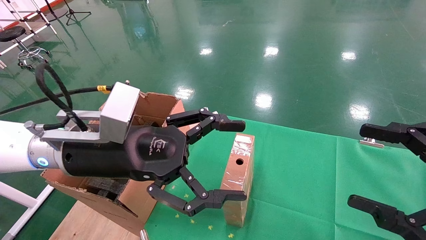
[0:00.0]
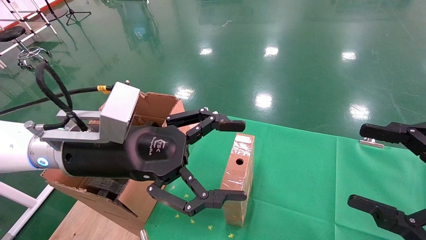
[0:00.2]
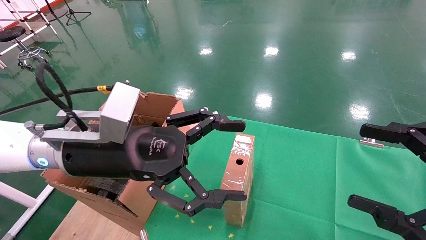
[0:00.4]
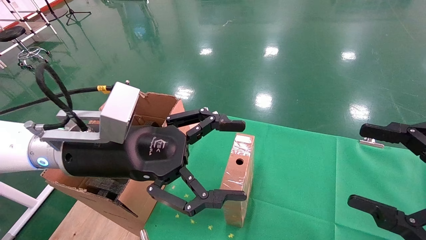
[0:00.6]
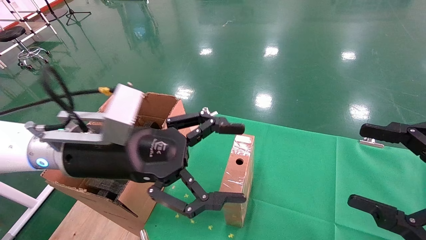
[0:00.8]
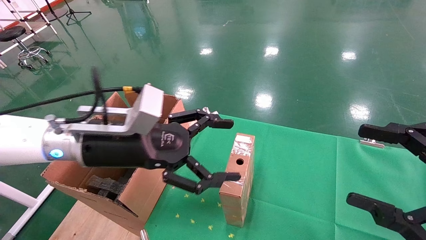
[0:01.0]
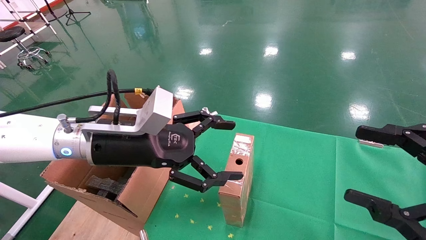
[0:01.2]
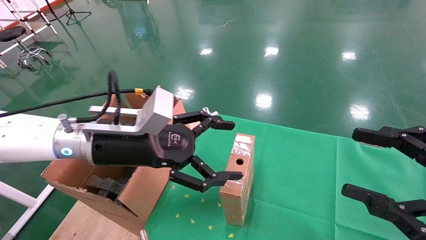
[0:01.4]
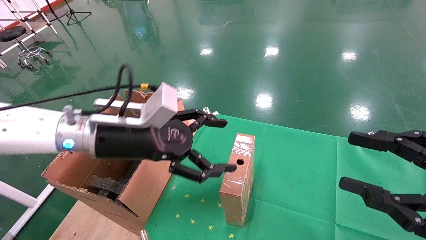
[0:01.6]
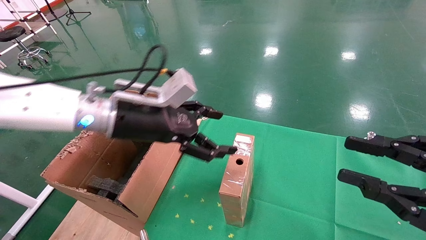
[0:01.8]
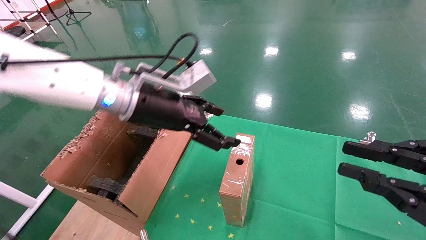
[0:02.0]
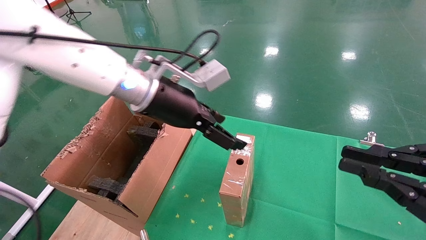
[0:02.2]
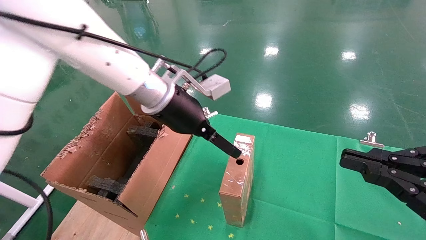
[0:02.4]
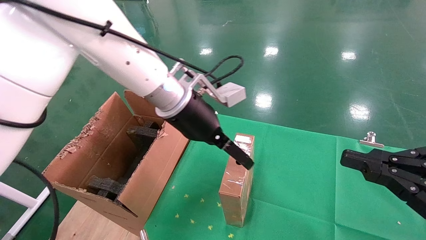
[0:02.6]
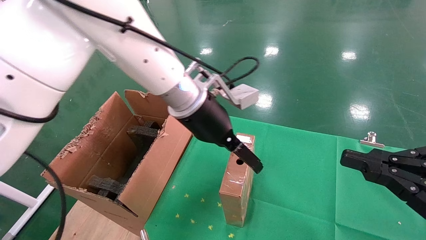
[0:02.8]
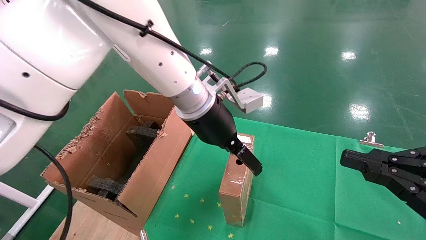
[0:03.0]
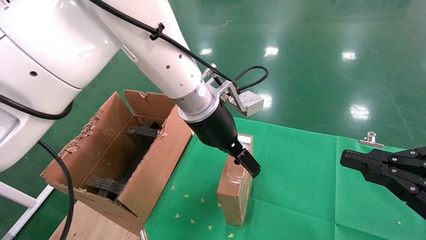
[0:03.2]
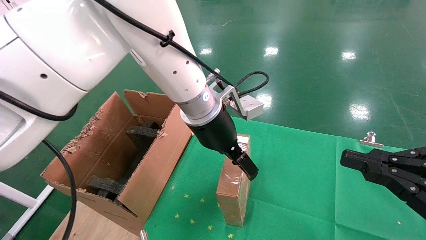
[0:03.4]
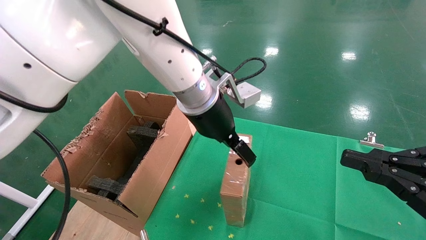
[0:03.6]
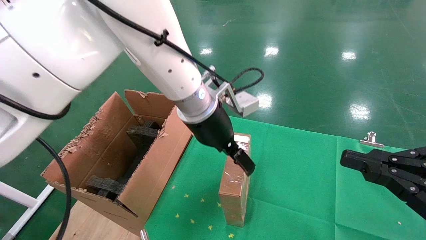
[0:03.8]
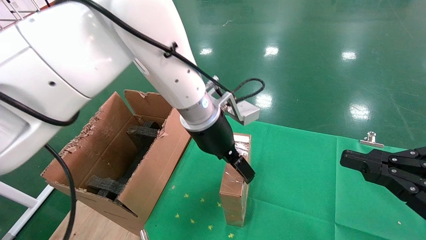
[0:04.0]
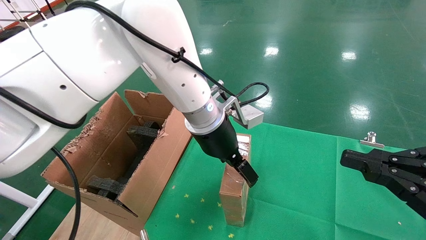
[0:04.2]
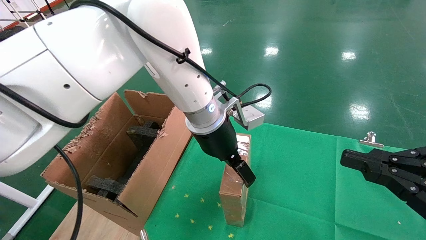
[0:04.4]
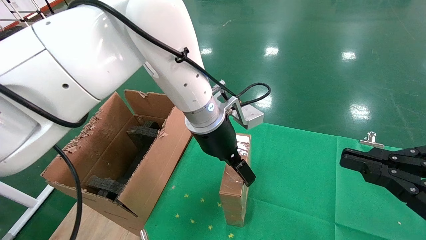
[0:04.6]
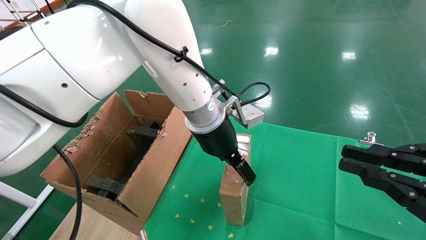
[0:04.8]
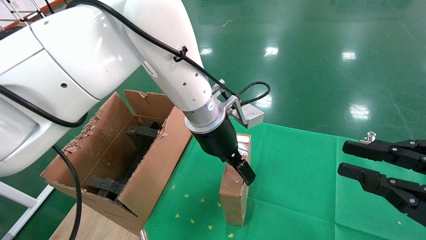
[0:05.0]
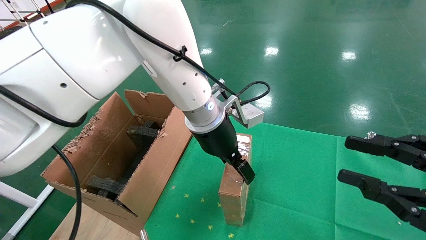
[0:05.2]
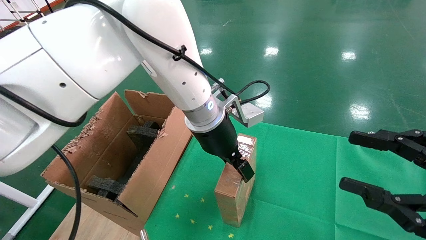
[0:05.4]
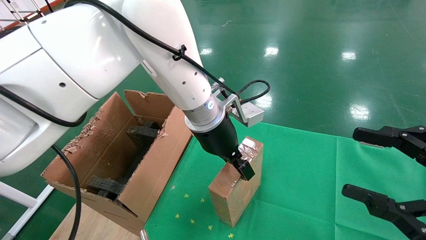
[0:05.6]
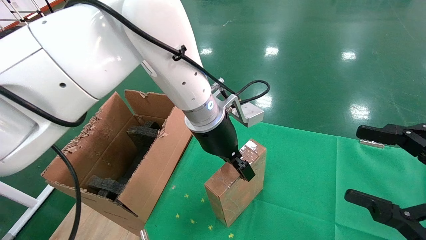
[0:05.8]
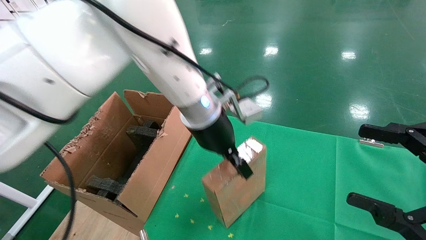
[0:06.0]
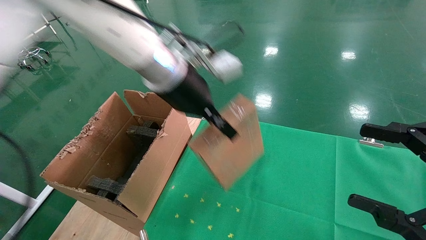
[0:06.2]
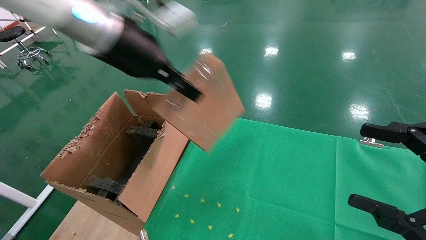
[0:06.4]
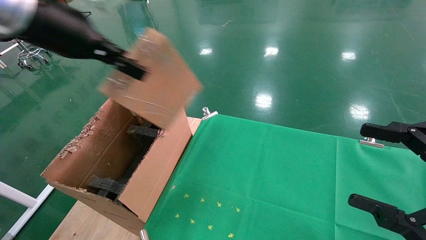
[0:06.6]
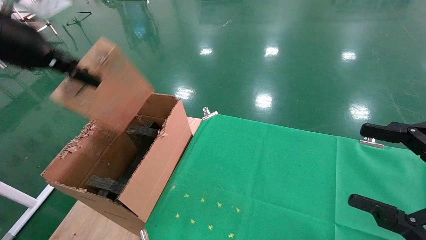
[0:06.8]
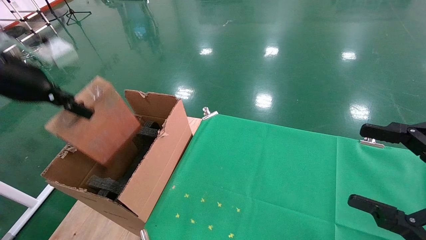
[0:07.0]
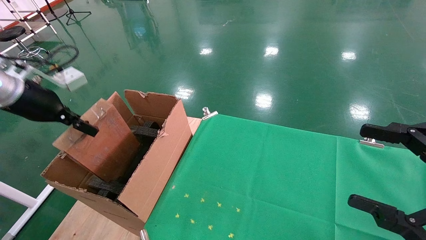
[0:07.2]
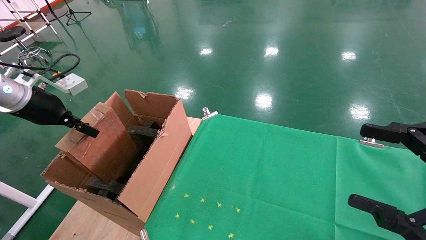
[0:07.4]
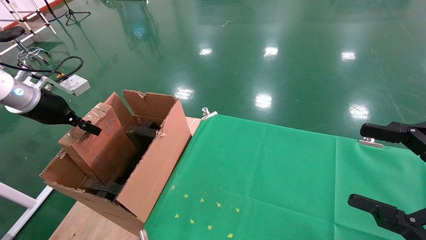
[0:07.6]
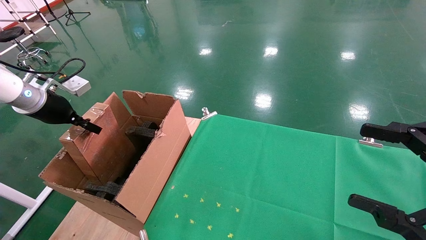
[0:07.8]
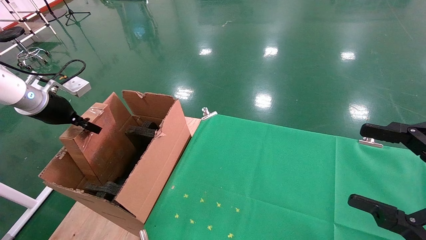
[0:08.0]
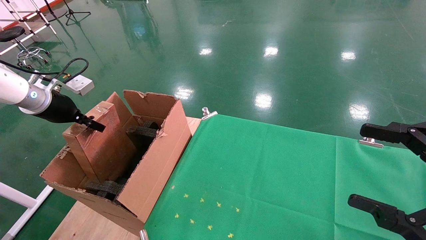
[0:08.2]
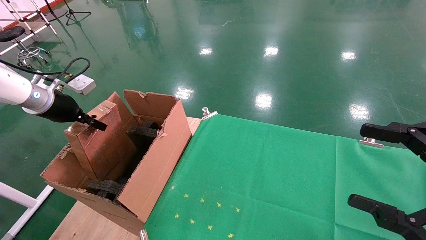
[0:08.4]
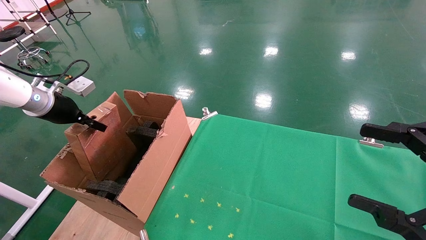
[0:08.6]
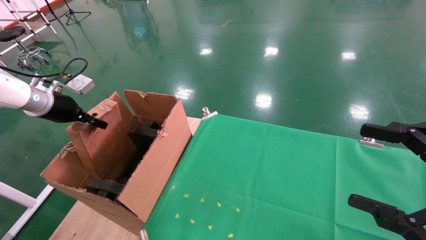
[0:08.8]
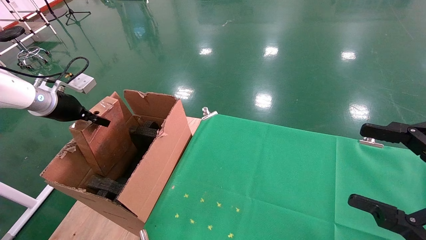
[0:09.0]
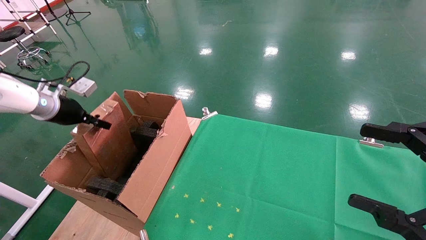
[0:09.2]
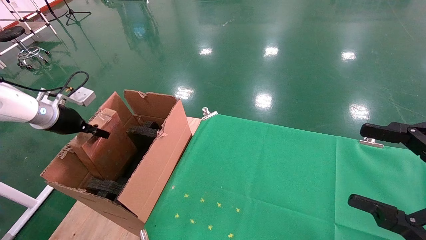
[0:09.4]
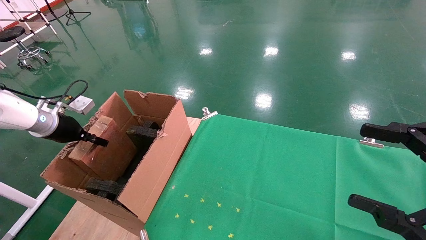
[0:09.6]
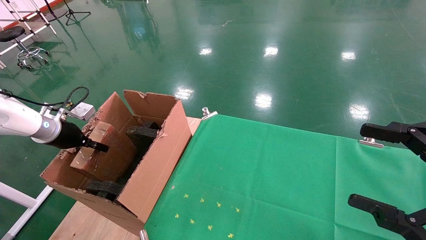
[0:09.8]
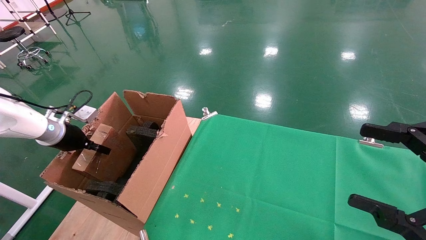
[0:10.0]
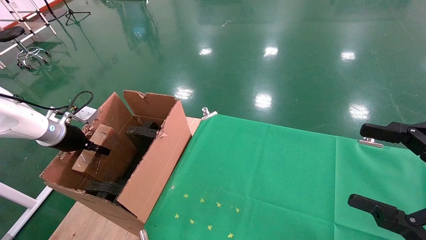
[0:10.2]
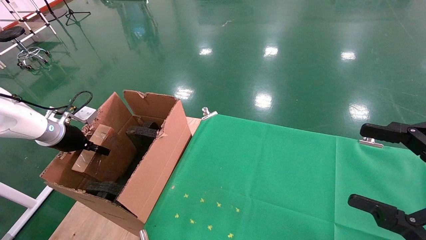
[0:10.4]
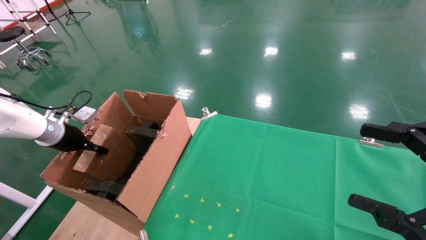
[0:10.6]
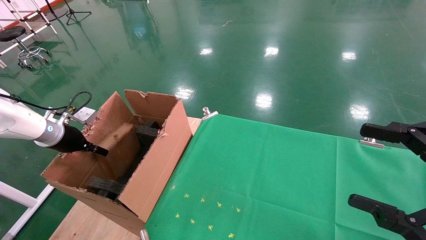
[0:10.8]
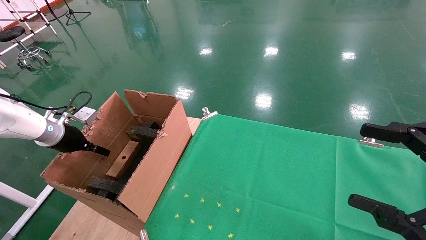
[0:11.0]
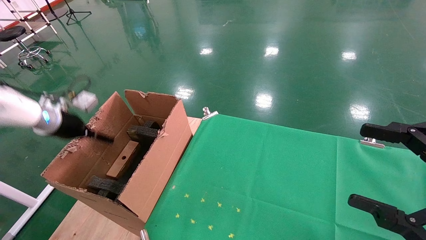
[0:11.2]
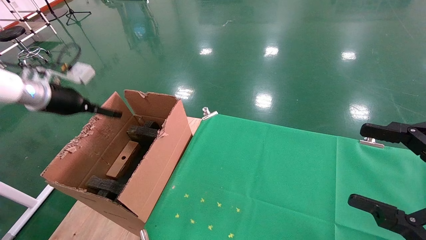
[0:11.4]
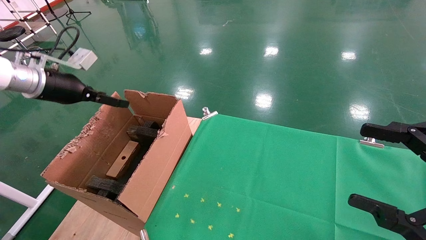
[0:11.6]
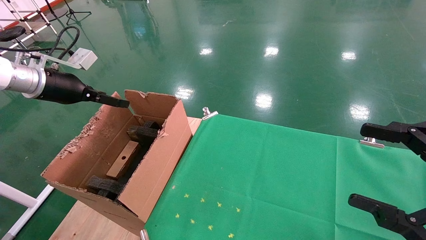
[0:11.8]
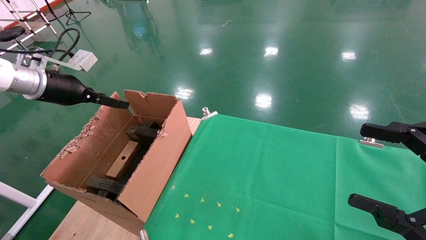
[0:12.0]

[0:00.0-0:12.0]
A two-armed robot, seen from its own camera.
Task of the whole recording: using a robotic arm to pick up a cardboard box and palace it the carton.
Step, 0:01.2 to 0:05.6: Pick up the mouse and the power cord paper box.
Step, 0:05.8 to 0:11.0: Place the mouse and the power cord paper box into the container.
0:00.0 to 0:01.6: The left gripper heads forward, covering approximately 5 cm.
0:01.6 to 0:03.0: The right gripper closes up. The left gripper moves to the right and forward, approximately 15 cm.
0:04.4 to 0:06.0: The right gripper opens up; the left gripper closes its fingers.
0:06.0 to 0:07.6: The left gripper moves to the left, roughly 40 cm.
0:07.6 to 0:09.0: The left gripper shifts by roughly 5 cm.
0:09.0 to 0:10.4: The left gripper heads downward, covering roughly 10 cm.
0:10.4 to 0:12.0: The left gripper shifts some 15 cm upward, and opens up.

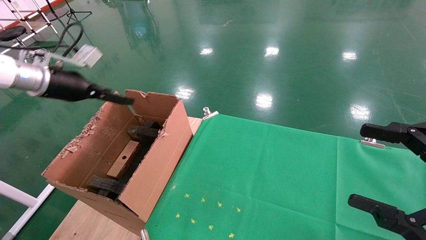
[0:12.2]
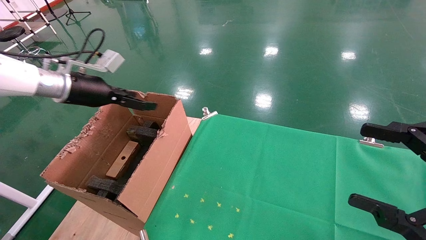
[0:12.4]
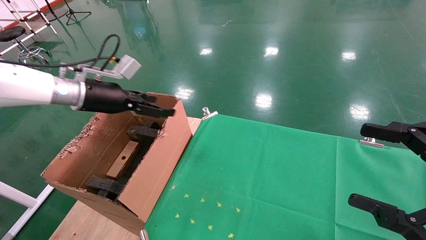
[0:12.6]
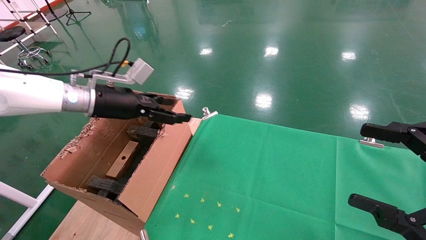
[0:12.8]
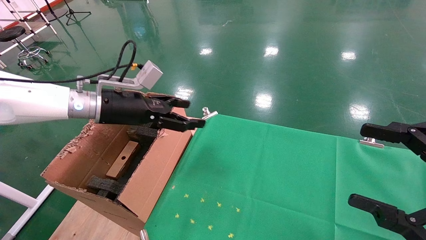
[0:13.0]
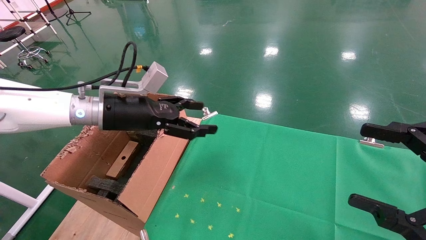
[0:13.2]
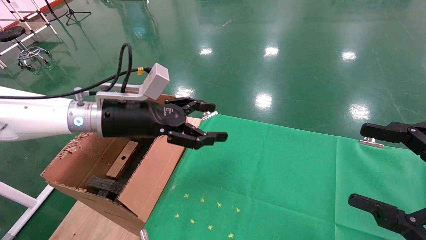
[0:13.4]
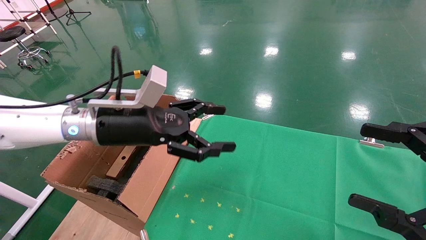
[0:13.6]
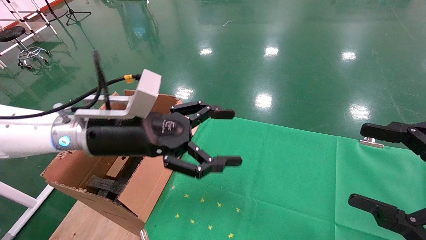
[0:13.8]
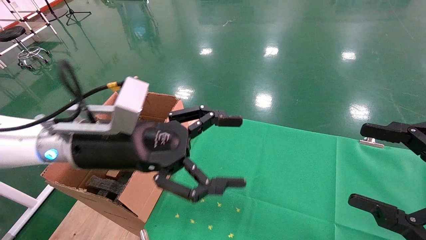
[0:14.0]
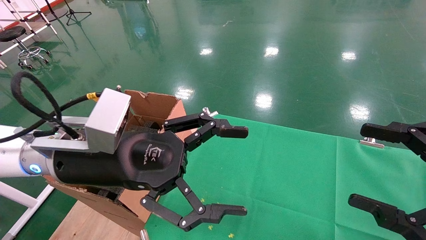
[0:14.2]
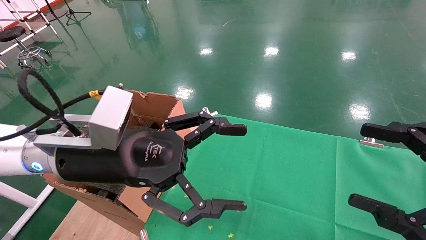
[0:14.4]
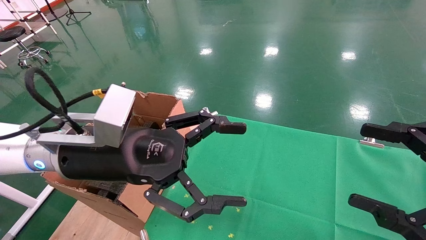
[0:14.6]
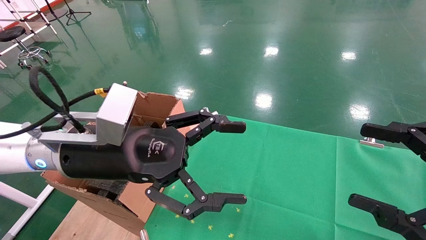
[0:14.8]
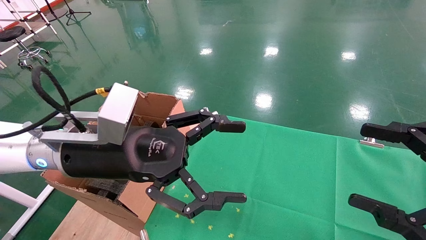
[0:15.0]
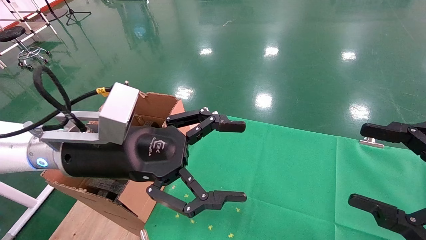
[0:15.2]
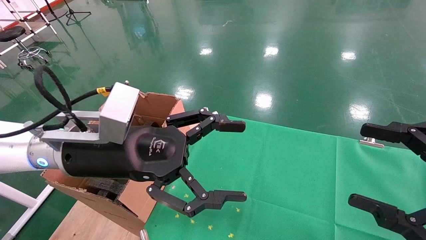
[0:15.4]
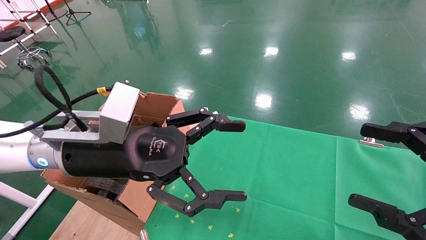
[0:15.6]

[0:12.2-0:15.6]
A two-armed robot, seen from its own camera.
Task of the whole recording: using a robotic arm to pick up a cardboard box and palace it the carton.
0:12.2 to 0:13.8: The left gripper heads to the right and backward, covering about 25 cm.
0:13.8 to 0:15.6: The grippers stay close to where they were, moving slightly.

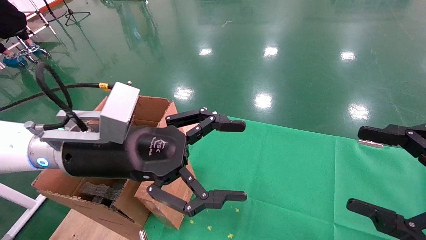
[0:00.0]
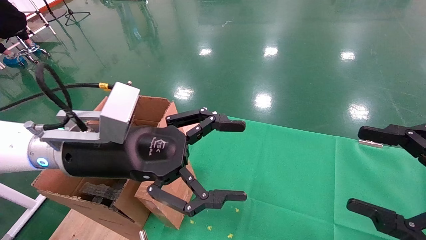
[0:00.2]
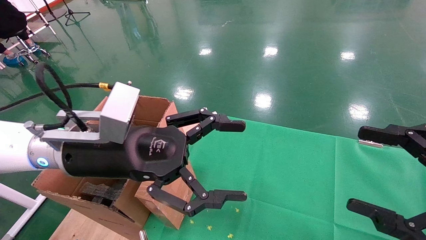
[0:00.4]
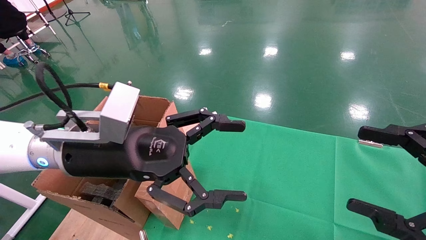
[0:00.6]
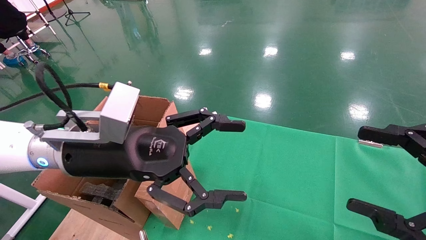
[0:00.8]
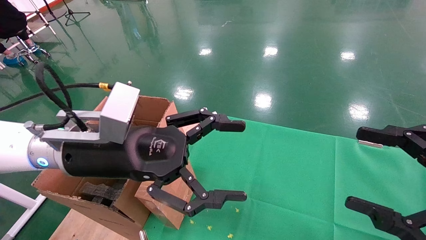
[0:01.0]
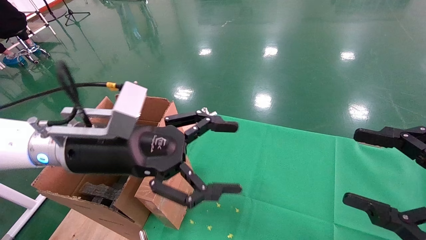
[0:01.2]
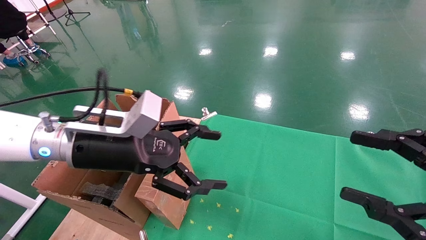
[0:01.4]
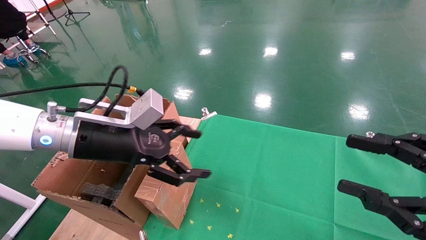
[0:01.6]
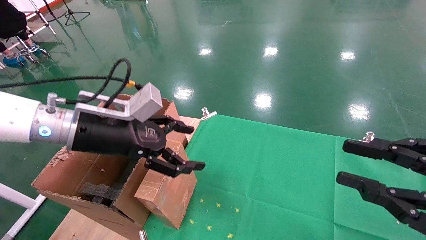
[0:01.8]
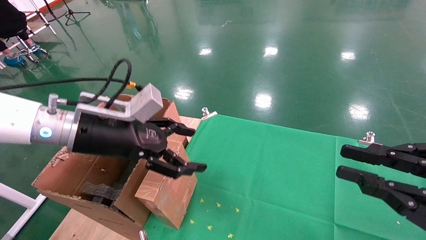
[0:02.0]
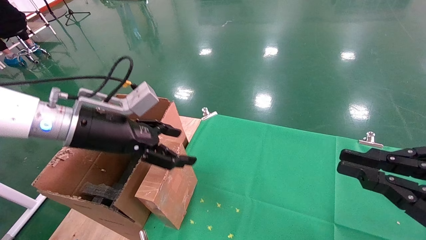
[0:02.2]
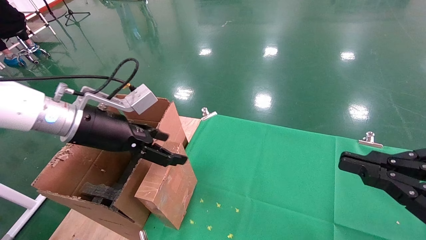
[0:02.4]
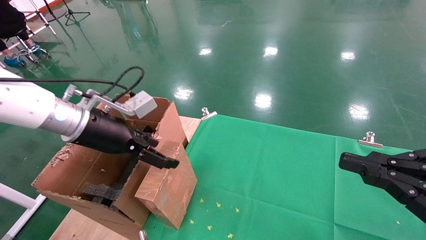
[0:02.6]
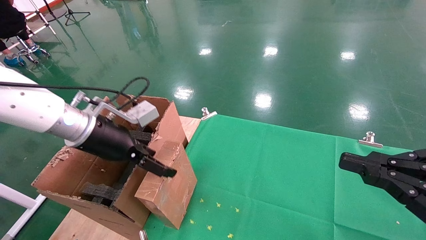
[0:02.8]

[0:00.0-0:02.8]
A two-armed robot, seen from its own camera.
Task of the whole recording: using a robotic arm to pick up a cardboard box and palace it the carton.
0:01.4 to 0:02.8: The right gripper closes up. Meanwhile the left gripper shifts by approximately 5 cm.
